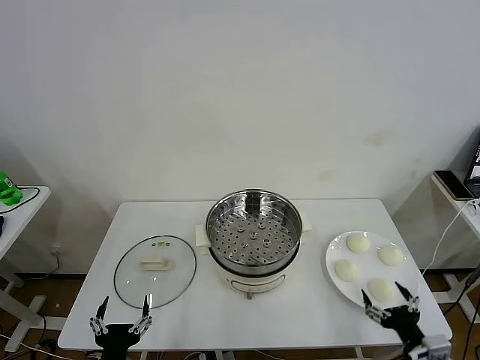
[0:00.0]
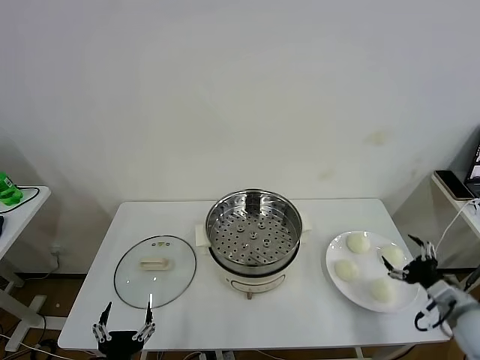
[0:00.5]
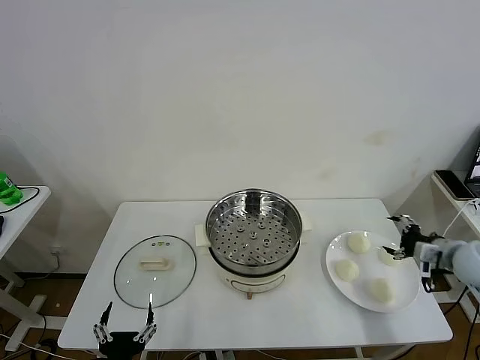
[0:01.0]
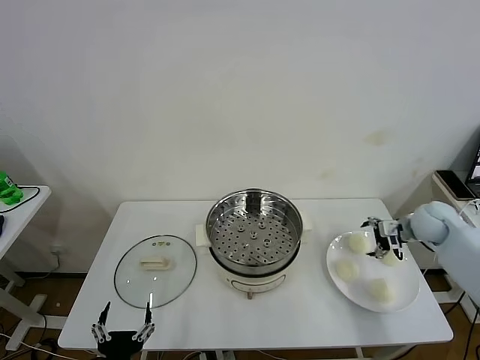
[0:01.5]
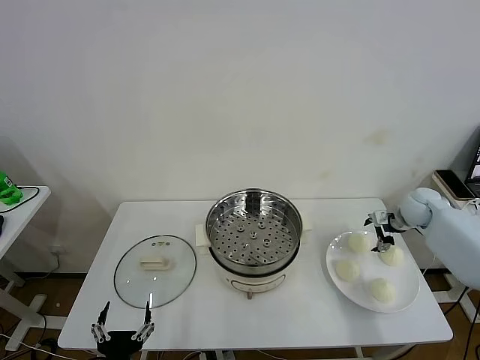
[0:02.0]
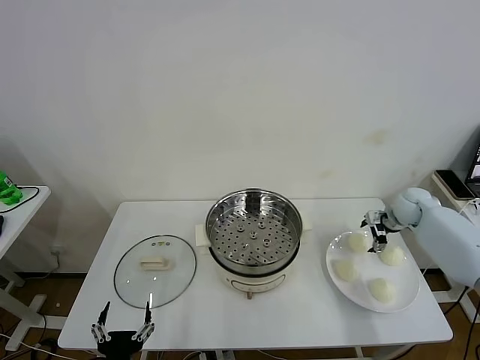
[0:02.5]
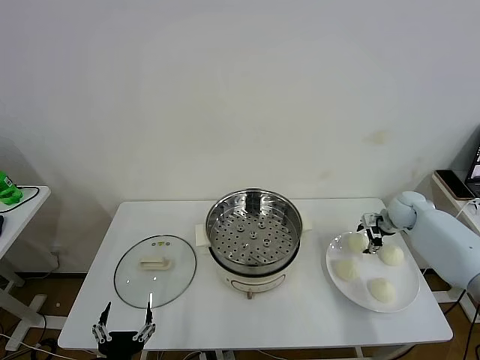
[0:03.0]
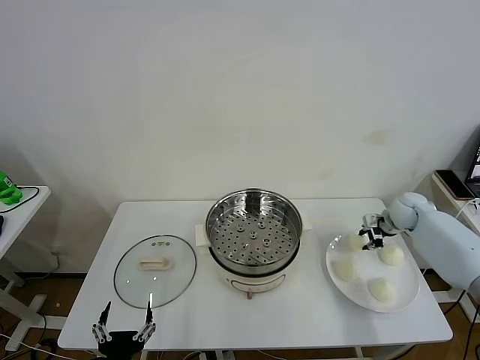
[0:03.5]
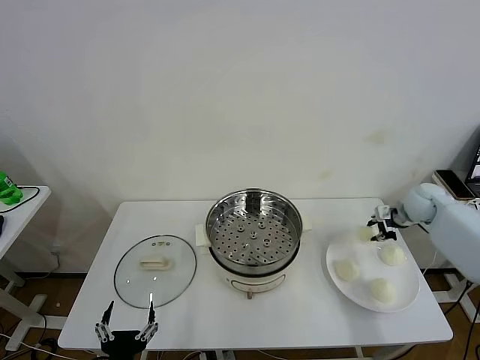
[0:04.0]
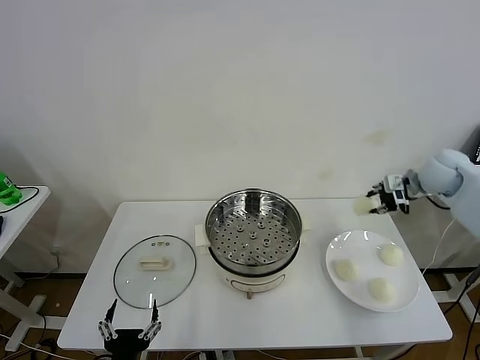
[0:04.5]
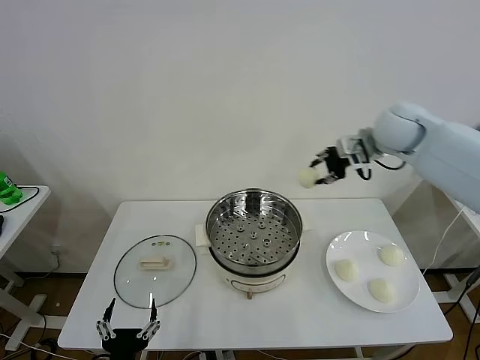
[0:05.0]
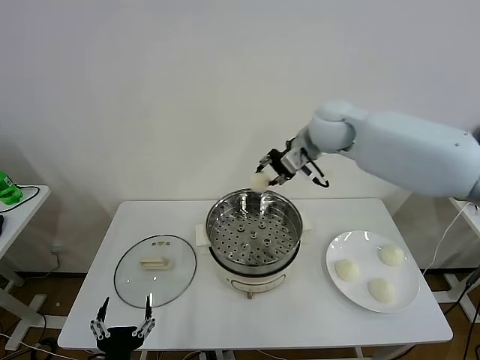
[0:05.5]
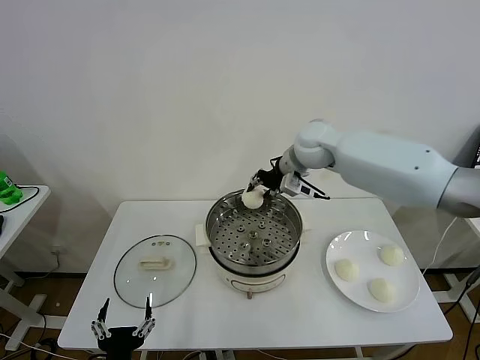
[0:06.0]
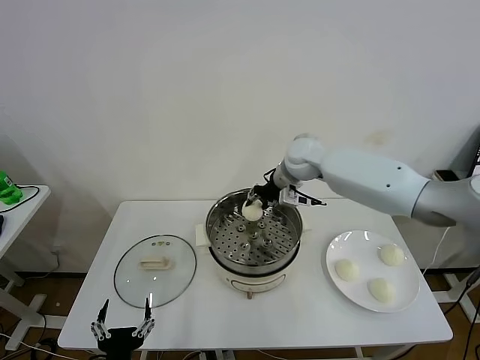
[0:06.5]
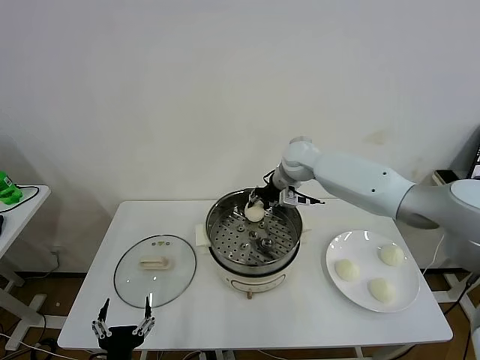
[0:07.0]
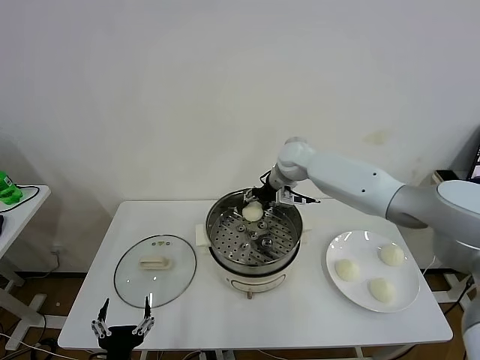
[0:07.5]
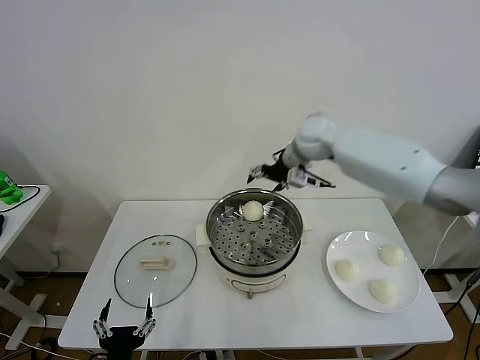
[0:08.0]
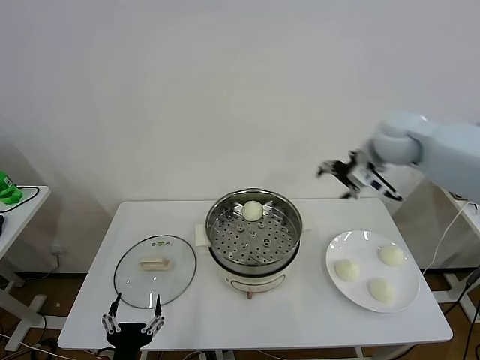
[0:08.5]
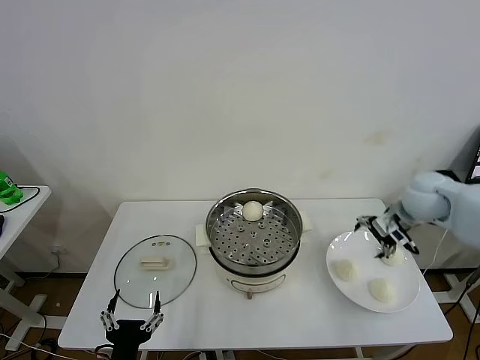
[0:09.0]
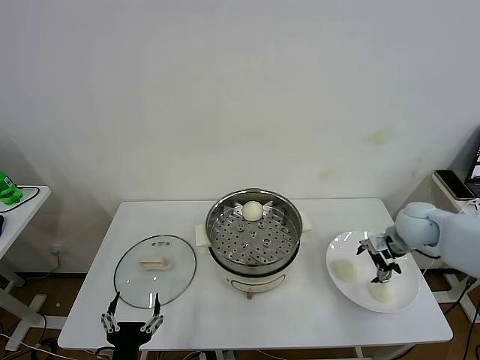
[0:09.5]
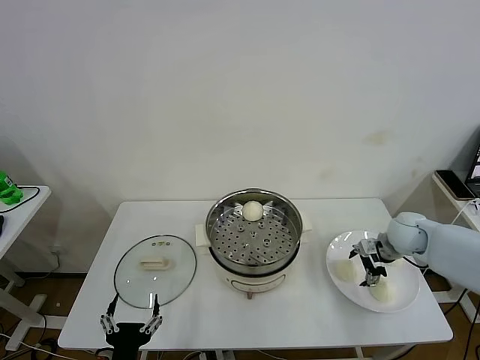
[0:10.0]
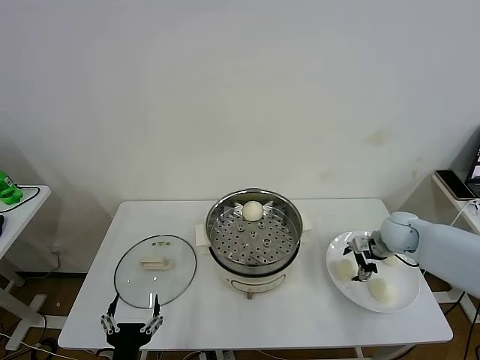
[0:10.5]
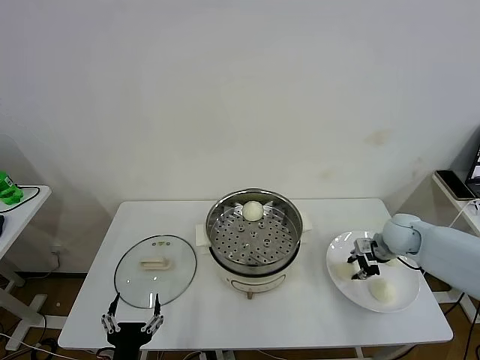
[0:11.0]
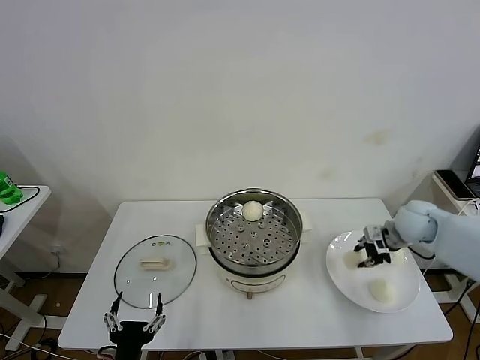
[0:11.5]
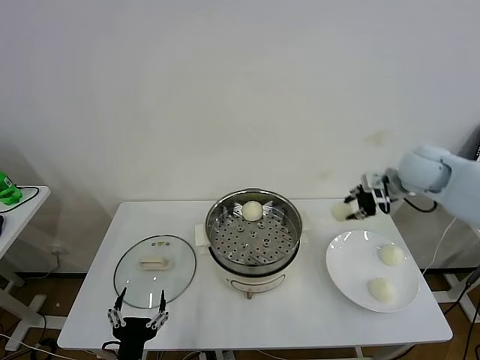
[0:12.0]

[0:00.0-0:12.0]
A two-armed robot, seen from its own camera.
Task of the whole recording: take steamed baozi put them in steamer then cover it.
Step, 0:00.0 to 0:03.5: Grasp the baozi with right gripper.
Step, 0:04.0 to 0:07.5: Place the baozi on the plate with right gripper.
Step, 0:08.0 to 0:11.0: Grasp the baozi with right gripper.
0:02.0 to 0:04.0: The right gripper shifts roughly 5 cm upward, and closes its fingers.
0:04.0 to 0:06.0: The right gripper travels to the left by about 30 cm.
0:06.0 to 0:08.0: The right gripper travels upward by roughly 5 cm, and opens its fingers.
0:08.0 to 0:10.0: The right gripper goes about 30 cm downward, to the right and backward.
0:10.0 to 0:12.0: The right gripper goes some 20 cm upward, and closes up.

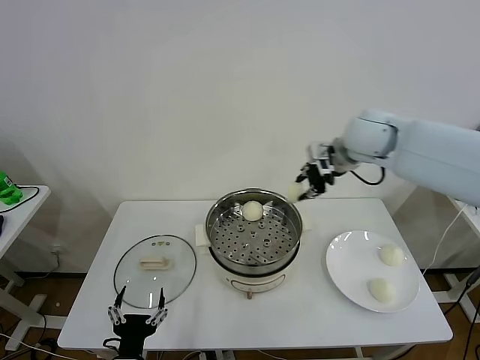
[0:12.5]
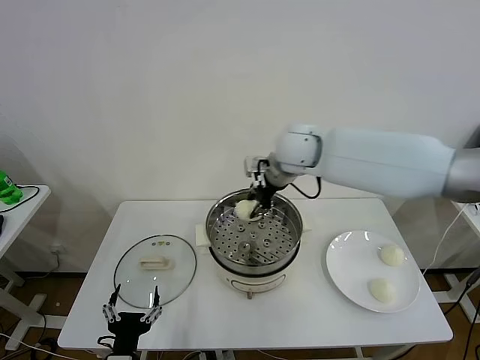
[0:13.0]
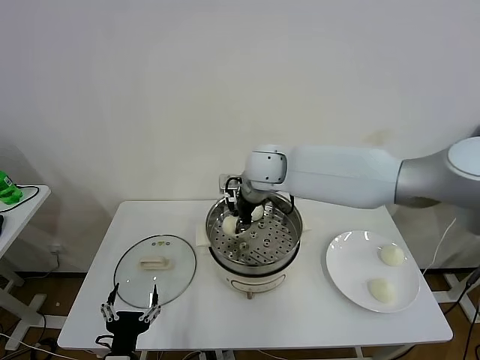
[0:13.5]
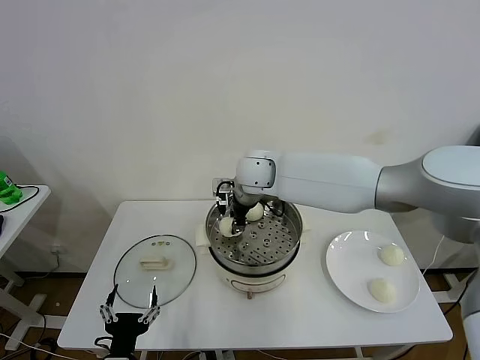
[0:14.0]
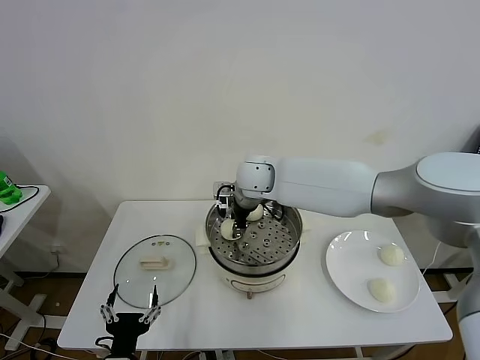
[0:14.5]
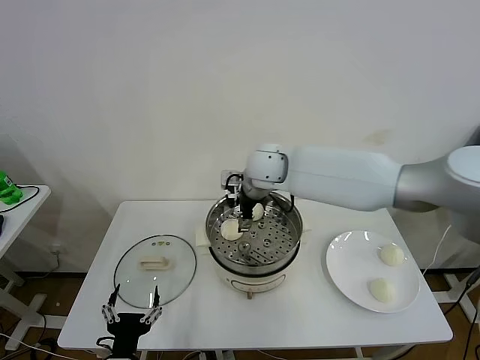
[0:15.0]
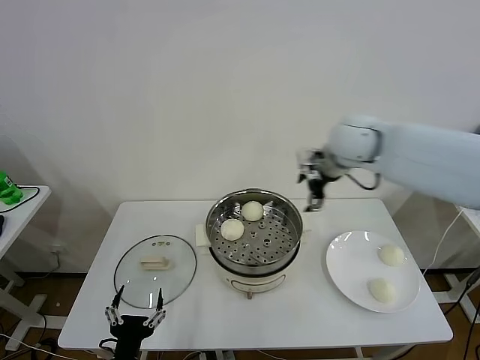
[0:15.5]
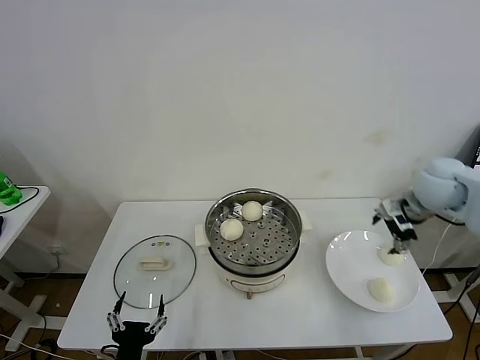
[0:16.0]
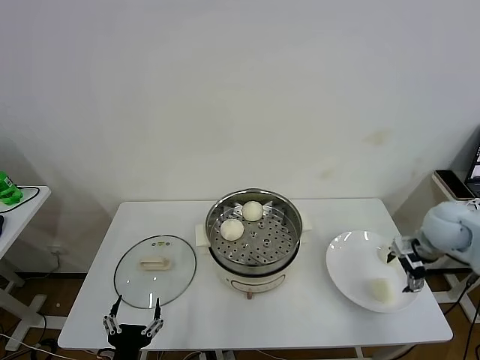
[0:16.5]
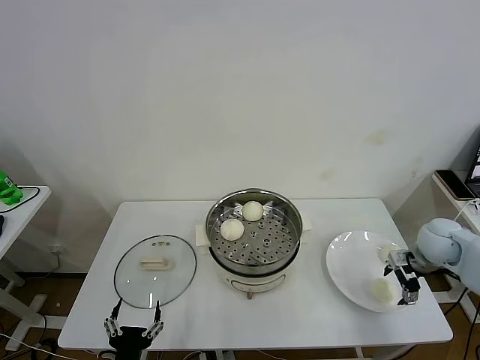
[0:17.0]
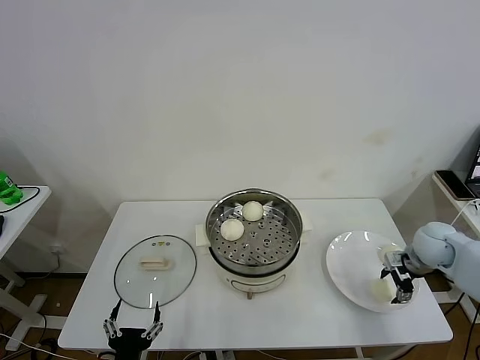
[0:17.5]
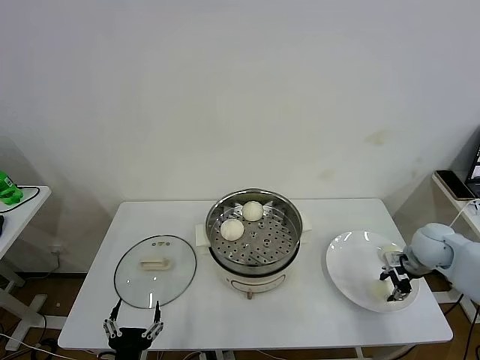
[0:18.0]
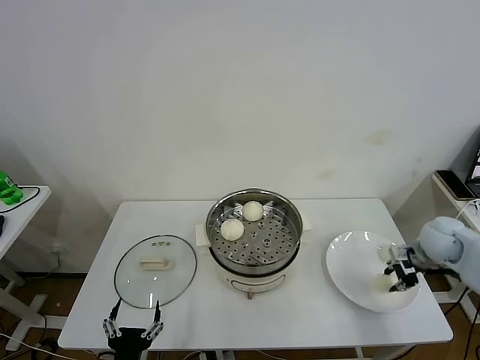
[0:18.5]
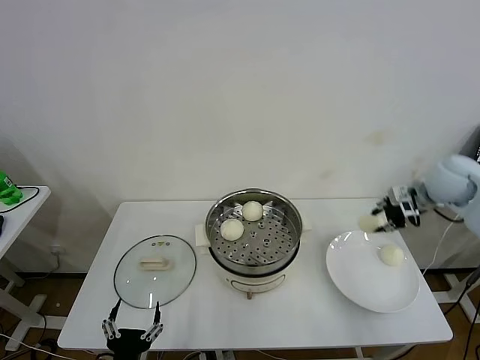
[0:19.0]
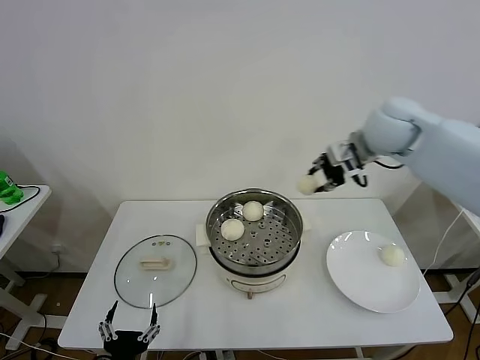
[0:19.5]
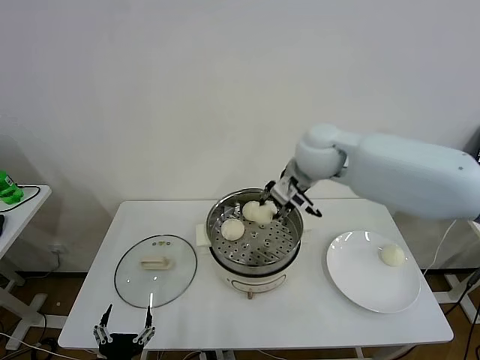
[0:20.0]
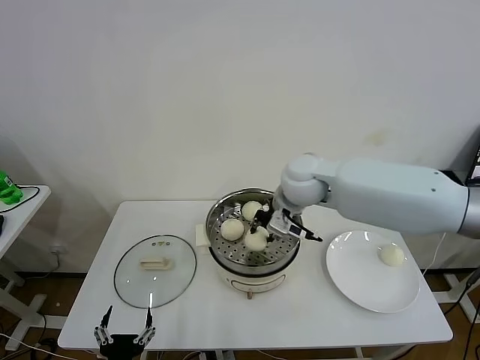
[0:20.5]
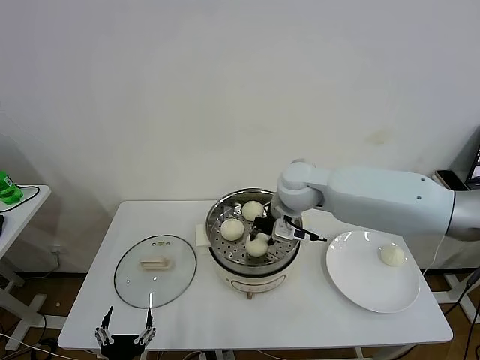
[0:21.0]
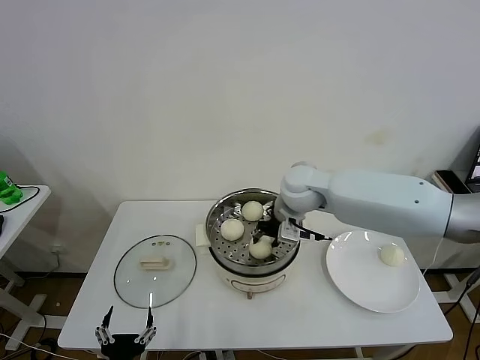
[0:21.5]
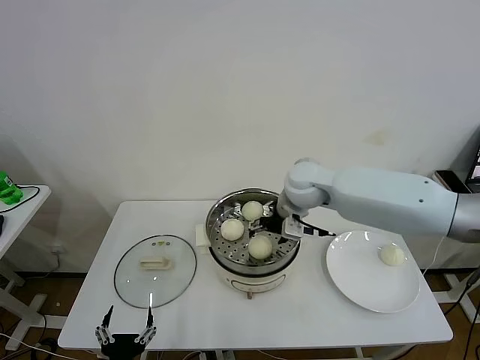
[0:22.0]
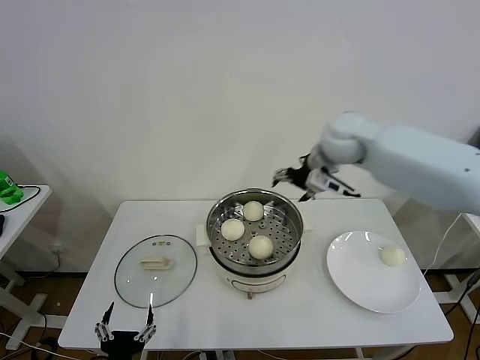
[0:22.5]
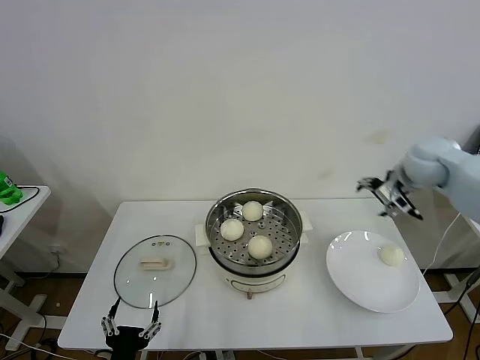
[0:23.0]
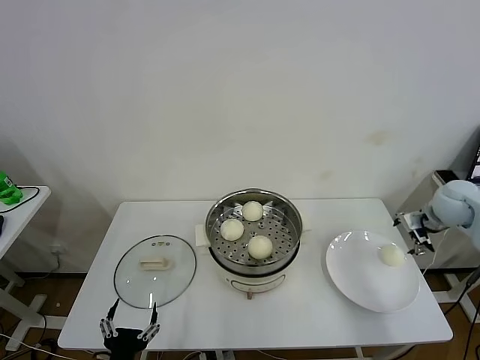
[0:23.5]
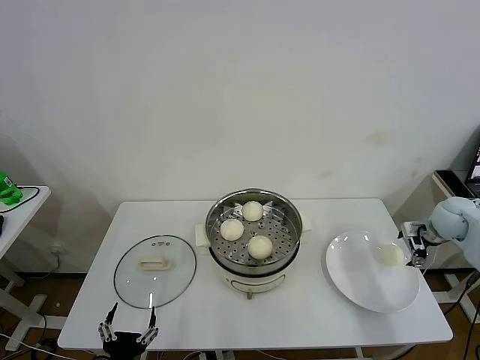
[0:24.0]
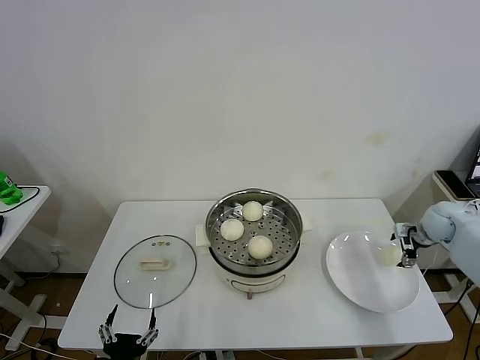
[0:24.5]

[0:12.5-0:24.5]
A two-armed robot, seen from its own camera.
Task of the whole recording: take steamed baozi put them in steamer then cover it.
Step, 0:12.5 to 0:14.5: Place the baozi on the plate with right gripper.
Step, 0:15.0 to 0:18.0: Grasp the baozi with right gripper.
Step, 0:18.5 to 0:22.0: Place the baozi on the plate with right gripper.
0:12.5 to 0:14.5: The right gripper travels to the left and downward by about 20 cm, and opens its fingers.
0:14.5 to 0:16.5: The right gripper is displaced to the right by approximately 40 cm, and opens its fingers.
0:16.5 to 0:18.5: The right gripper closes up.
0:18.5 to 0:20.5: The right gripper shifts approximately 35 cm to the left.
0:20.5 to 0:22.5: The right gripper travels to the right, forward and upward by roughly 15 cm, and opens.
0:22.5 to 0:24.5: The right gripper travels to the right and downward by some 35 cm.

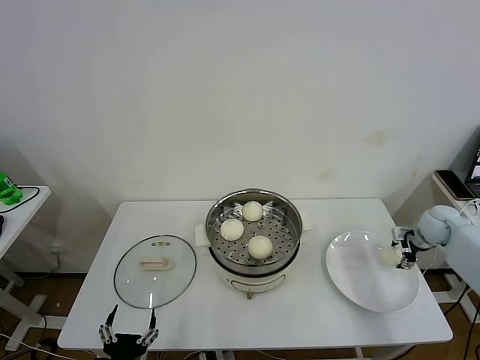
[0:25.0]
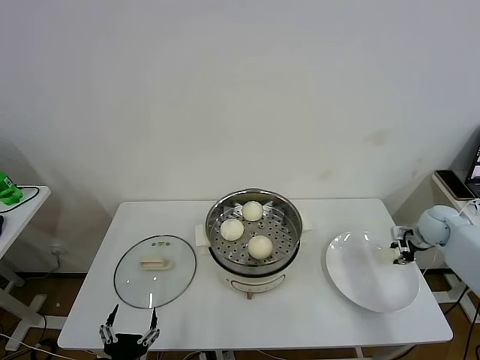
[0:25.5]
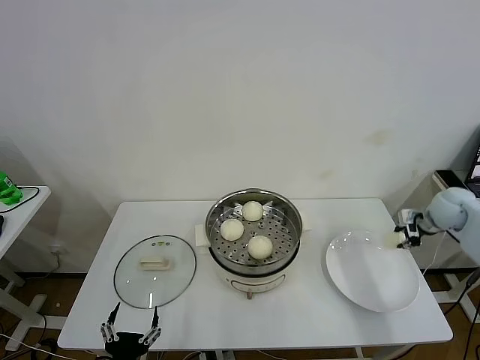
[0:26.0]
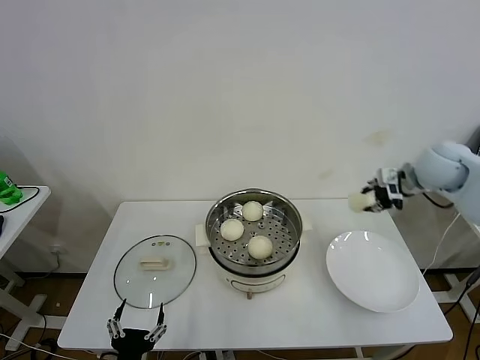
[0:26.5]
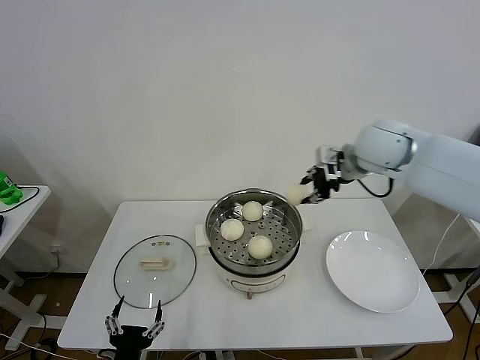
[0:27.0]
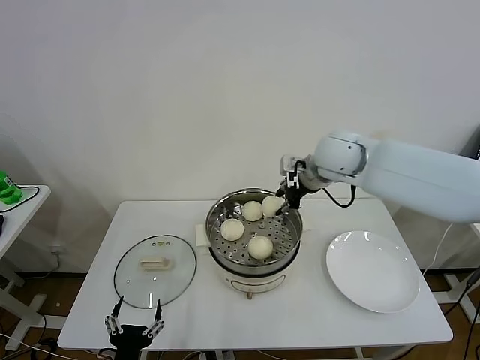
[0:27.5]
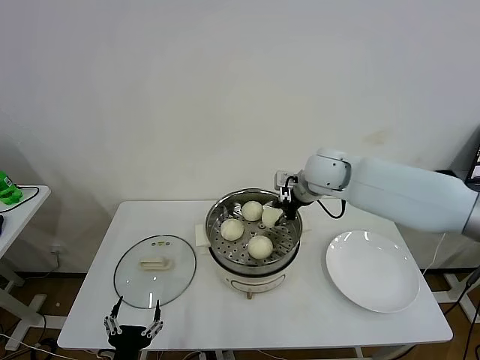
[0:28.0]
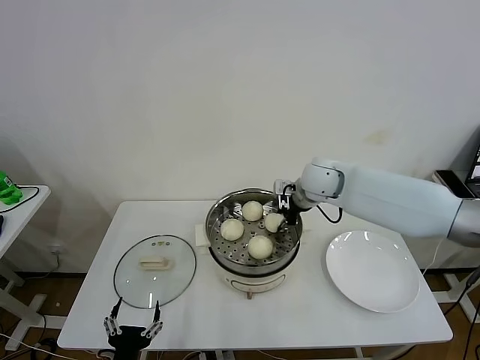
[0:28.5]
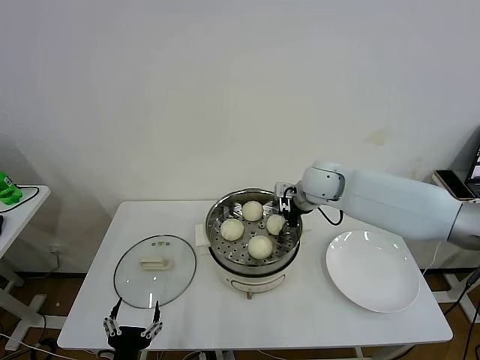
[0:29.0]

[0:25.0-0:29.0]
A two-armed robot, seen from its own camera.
Task of the whole recording: take steamed baozi put them in steamer then cover it.
0:25.0 to 0:27.0: The right gripper moves to the left and upward, roughly 35 cm, and closes up.
0:27.0 to 0:29.0: The right gripper heads downward and to the left, covering roughly 15 cm, and opens up.
